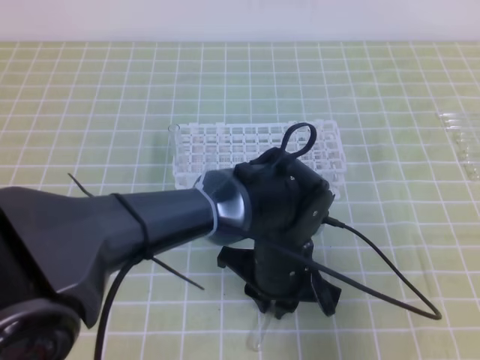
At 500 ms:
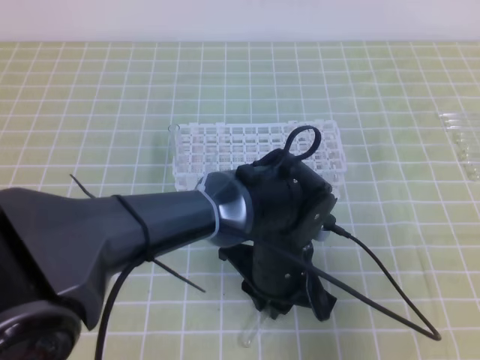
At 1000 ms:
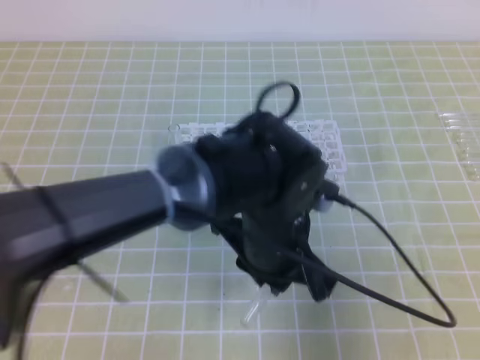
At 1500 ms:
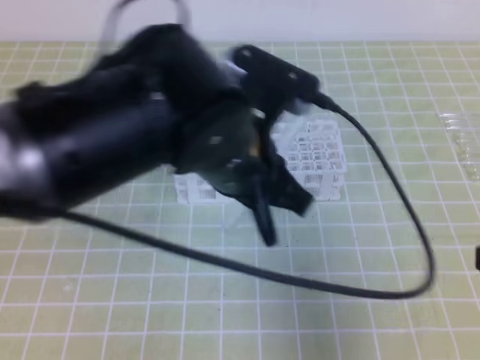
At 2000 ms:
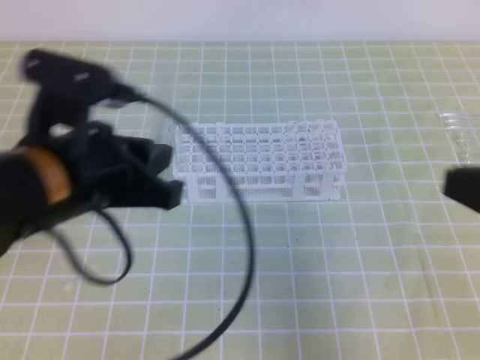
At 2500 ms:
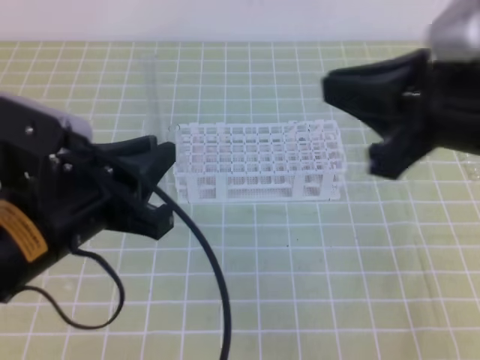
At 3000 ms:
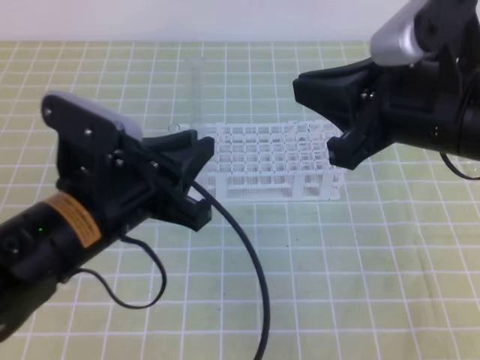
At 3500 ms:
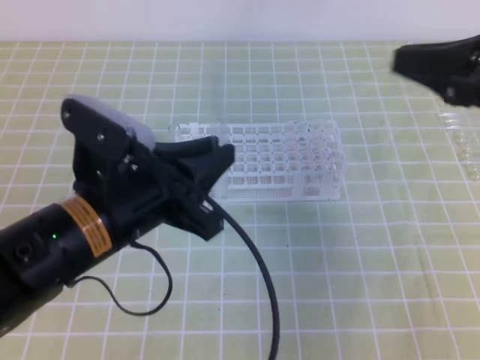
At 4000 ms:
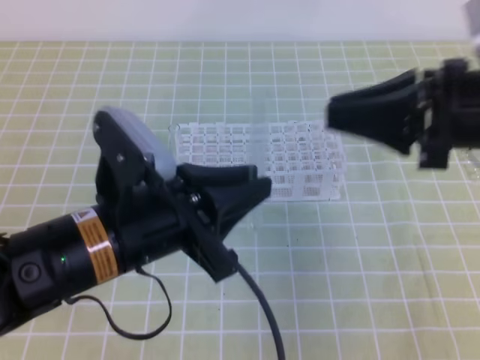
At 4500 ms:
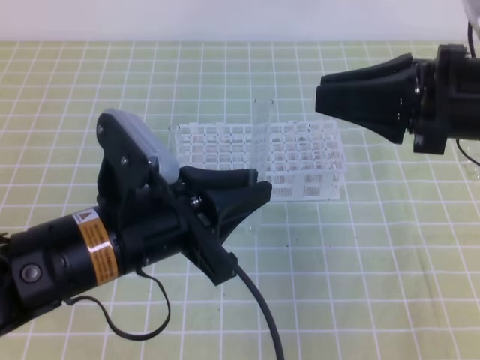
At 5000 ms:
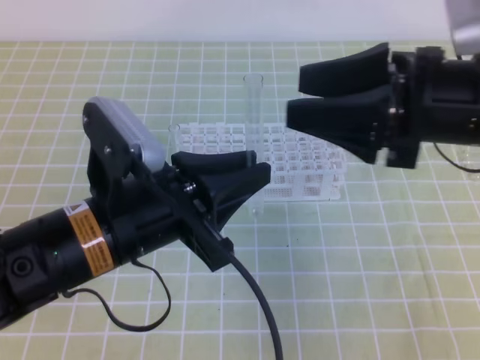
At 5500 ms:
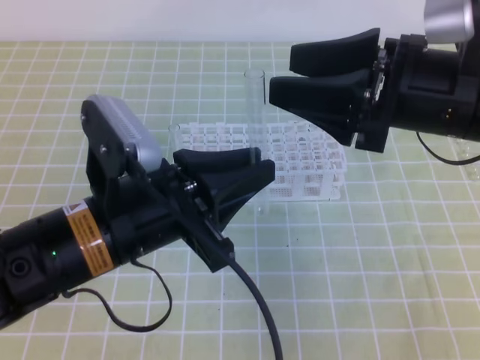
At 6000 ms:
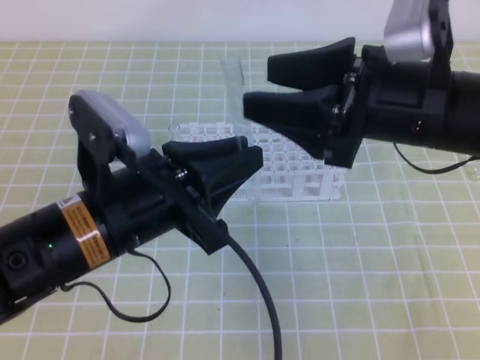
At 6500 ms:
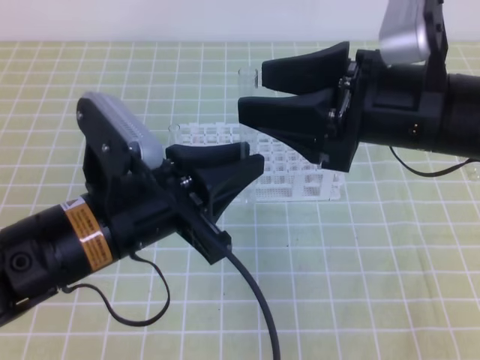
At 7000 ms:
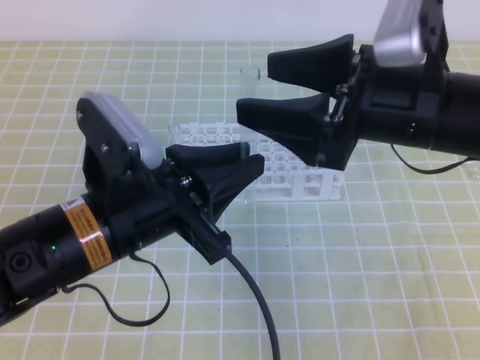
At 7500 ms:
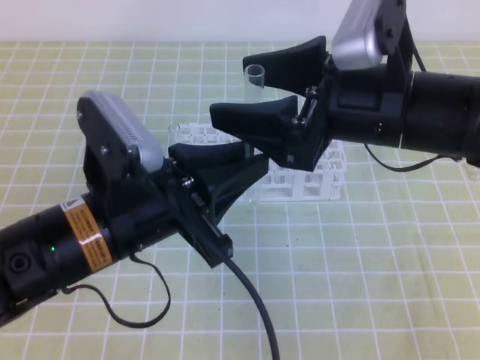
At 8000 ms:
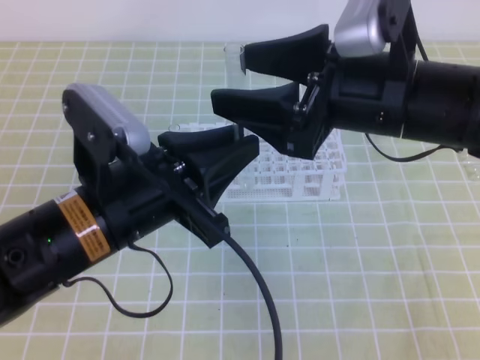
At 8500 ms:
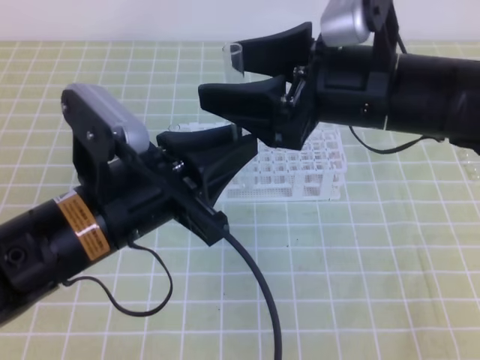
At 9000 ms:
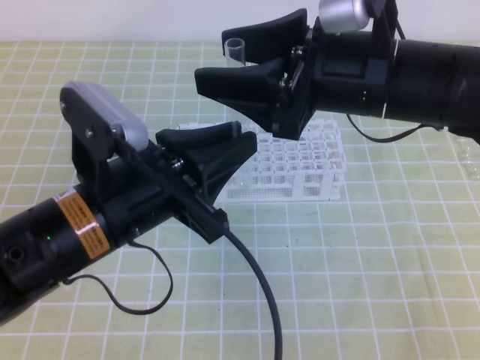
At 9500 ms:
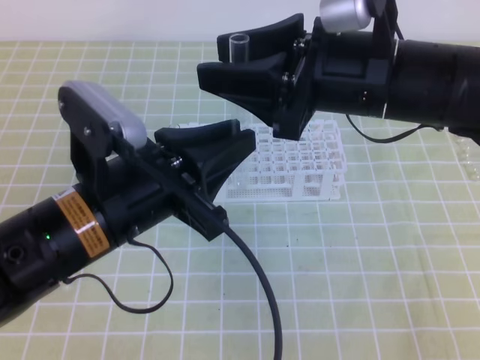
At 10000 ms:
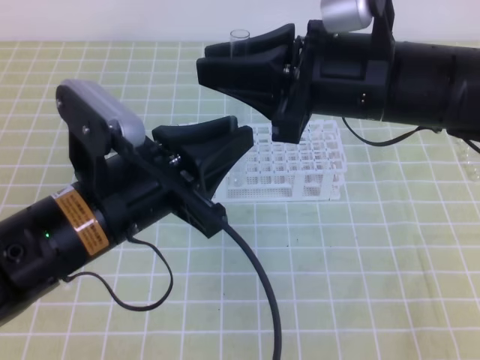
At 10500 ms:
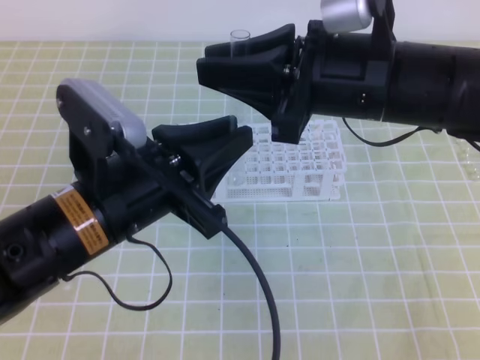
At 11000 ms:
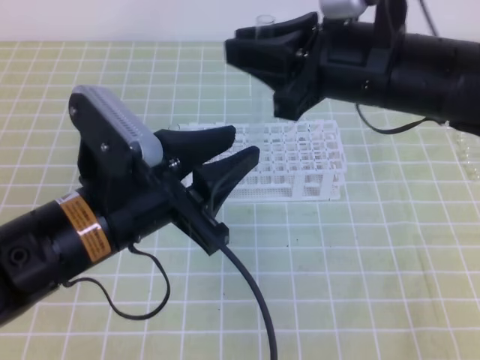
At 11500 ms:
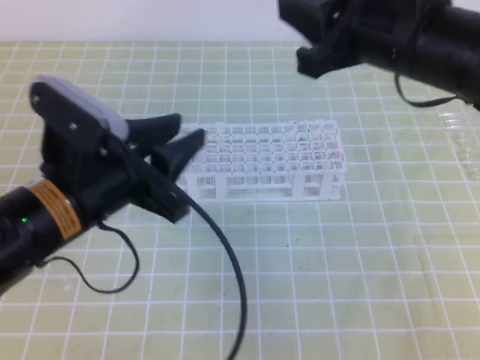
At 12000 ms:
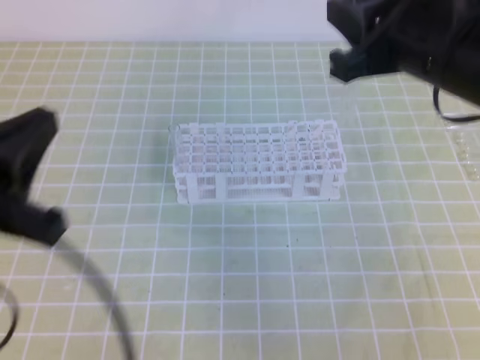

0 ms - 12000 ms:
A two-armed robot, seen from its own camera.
0 ms - 2000 ms: The right gripper changes place by approximately 5 cm. The left gripper goes roughly 25 cm to the left and upward.
2000 ms - 4000 ms: The right gripper travels forward by about 10 cm. Meanwhile the left gripper shifts by roughly 5 cm.
4000 ms - 6000 ms: The right gripper shifts roughly 5 cm to the left, and opens.
6000 ms - 8000 ms: The grippers stay close to where they were, moving slightly.
8000 ms - 10000 ms: The right gripper closes up.
10000 ms - 12000 ms: The left gripper travels to the left by some 10 cm, and opens, then closes once more; the right gripper shifts by about 5 cm.

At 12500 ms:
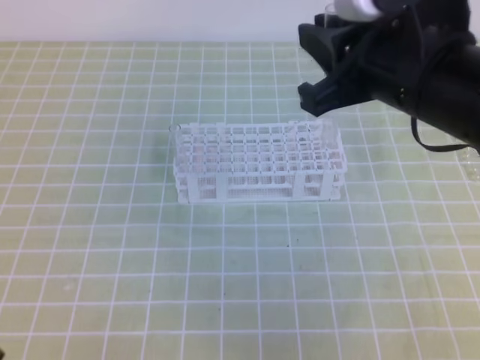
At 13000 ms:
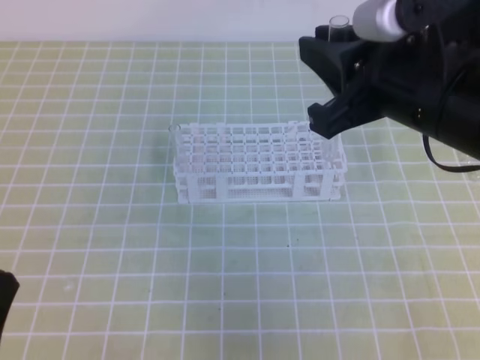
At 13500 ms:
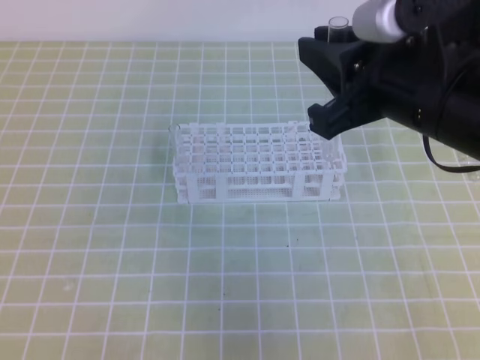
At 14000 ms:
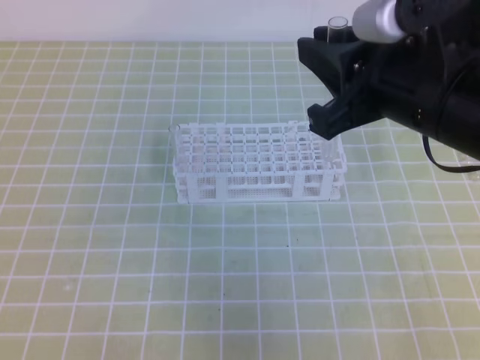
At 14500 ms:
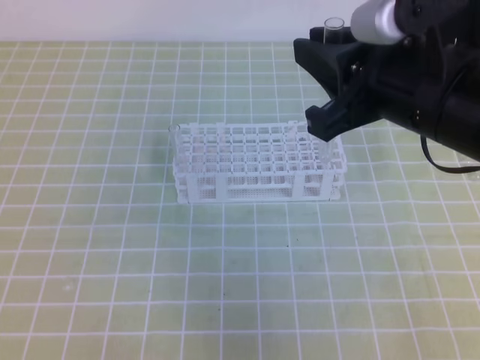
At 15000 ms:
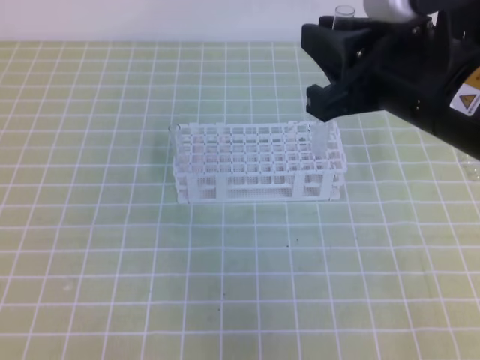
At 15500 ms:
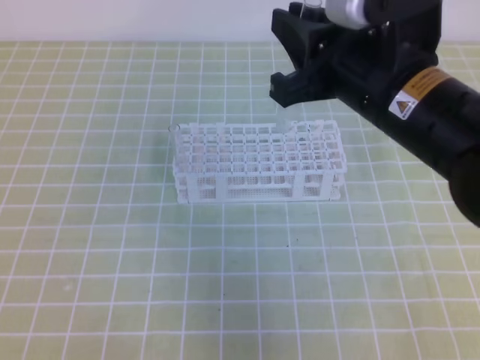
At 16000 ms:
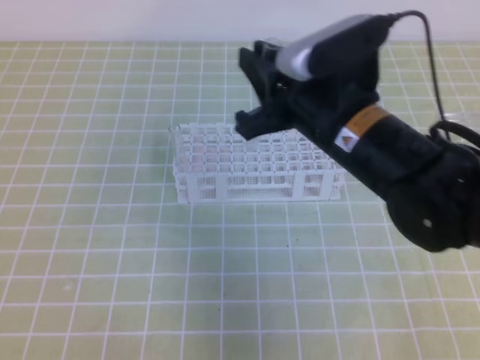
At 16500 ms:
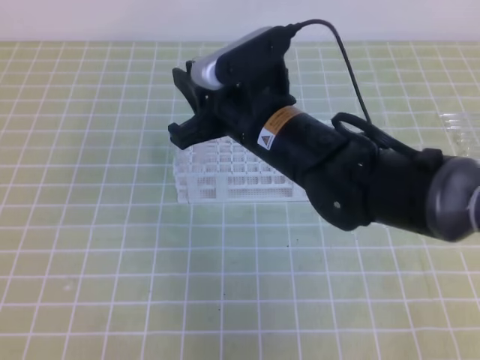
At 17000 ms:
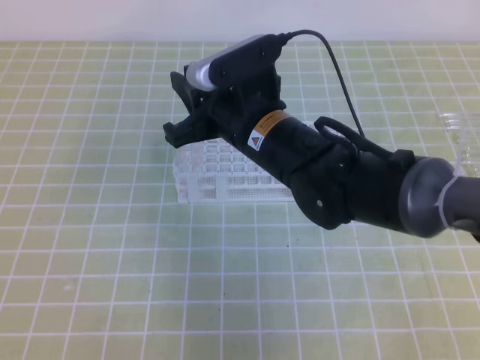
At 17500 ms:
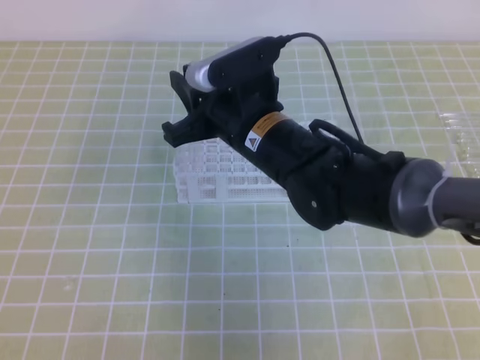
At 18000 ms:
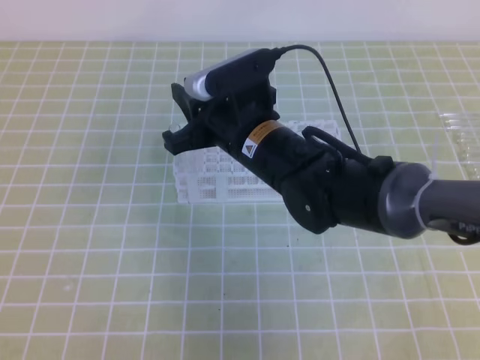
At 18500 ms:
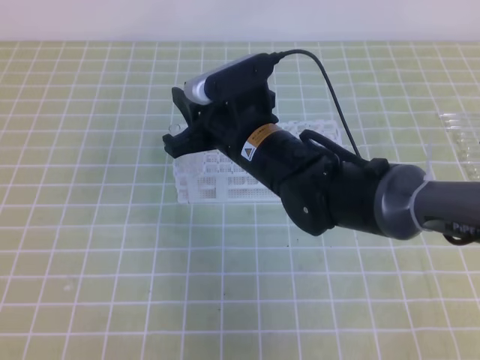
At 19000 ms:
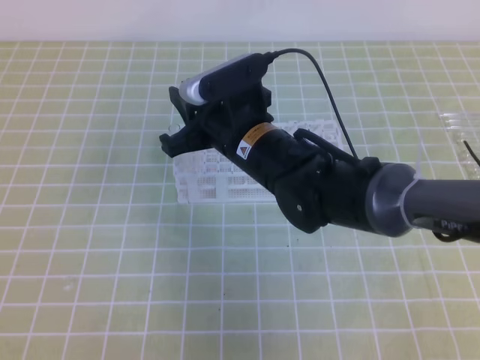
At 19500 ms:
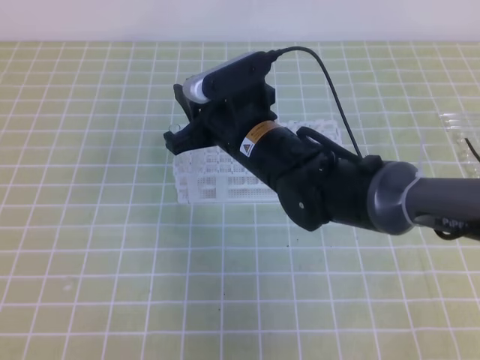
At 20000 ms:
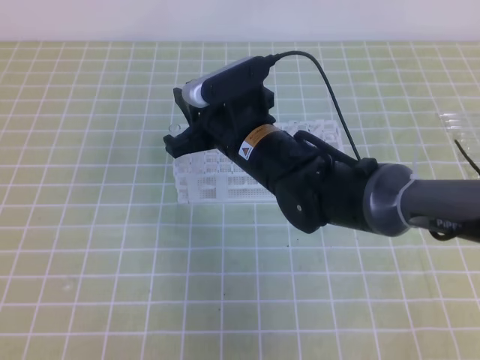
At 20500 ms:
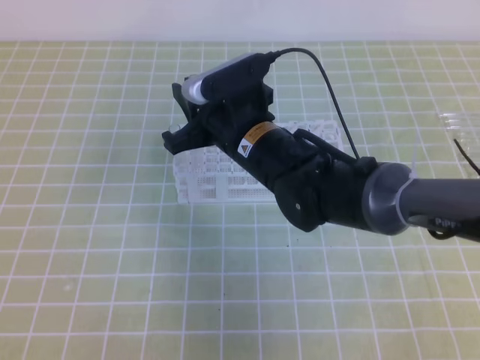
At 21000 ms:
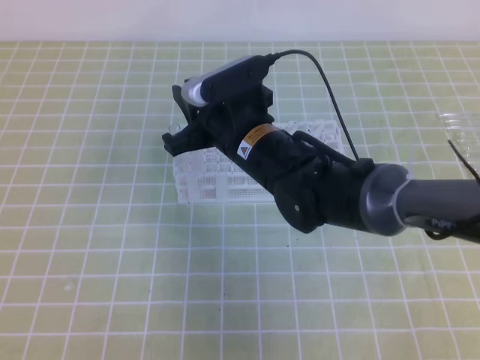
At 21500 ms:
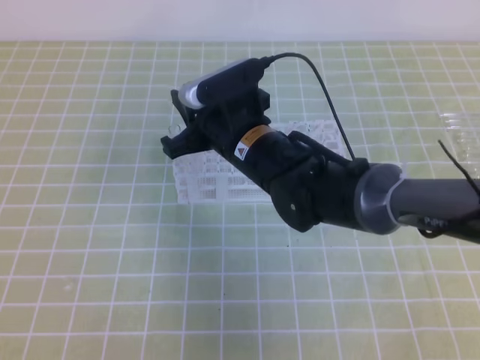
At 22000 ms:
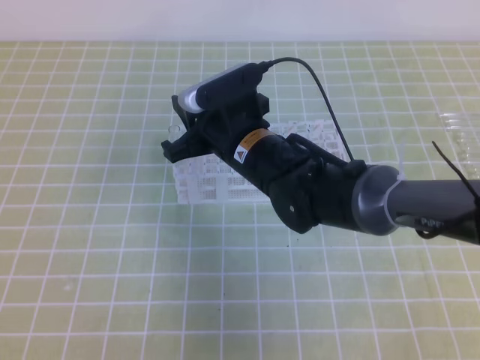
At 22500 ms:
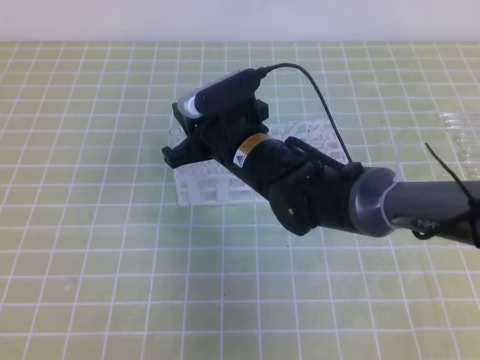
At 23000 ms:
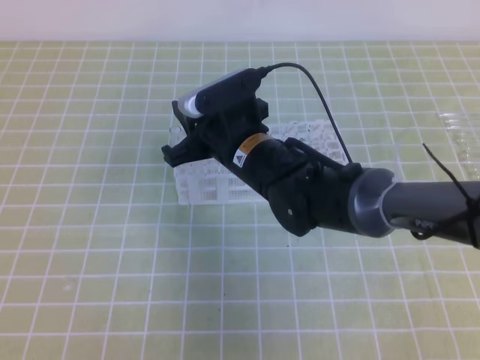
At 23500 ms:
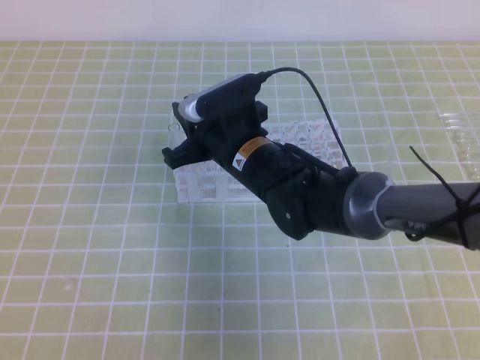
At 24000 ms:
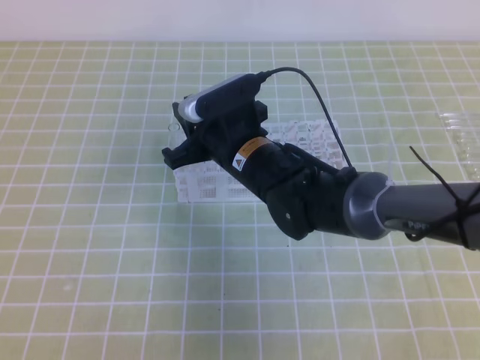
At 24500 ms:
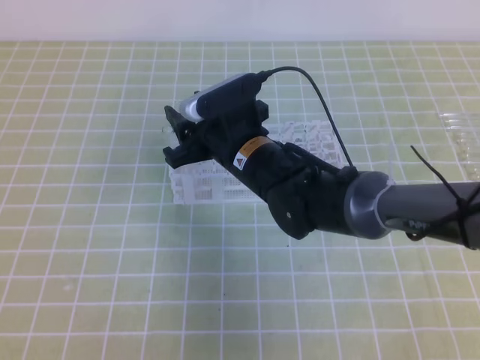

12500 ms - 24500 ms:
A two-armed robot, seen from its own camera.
12500 ms - 14500 ms: The left gripper moves downward, about 5 cm.
14500 ms - 16500 ms: The right gripper shifts some 15 cm to the left, downward and forward.
16500 ms - 18500 ms: The right gripper shifts by roughly 5 cm.
18500 ms - 20500 ms: Neither gripper changes place.
20500 ms - 22500 ms: The grippers move only a little.
22500 ms - 24500 ms: The right gripper opens its fingers.

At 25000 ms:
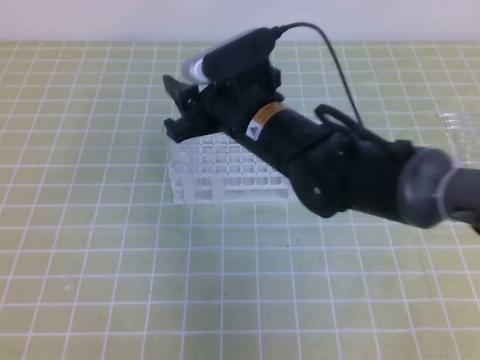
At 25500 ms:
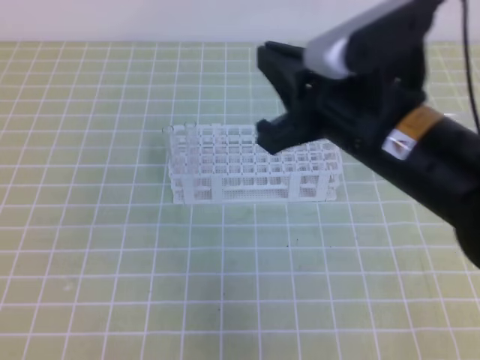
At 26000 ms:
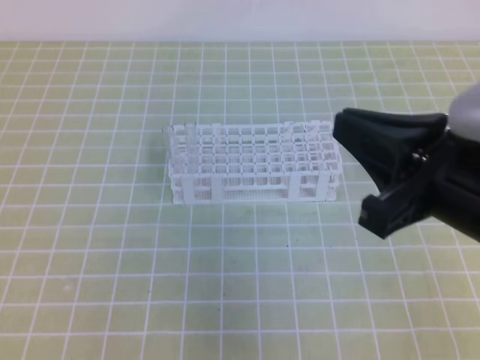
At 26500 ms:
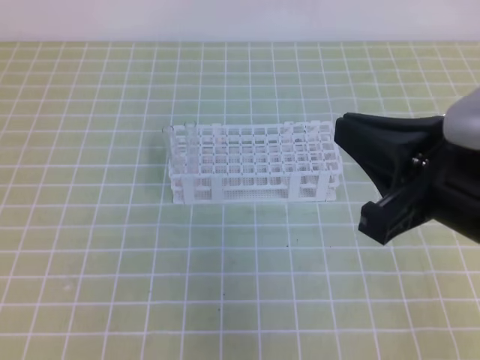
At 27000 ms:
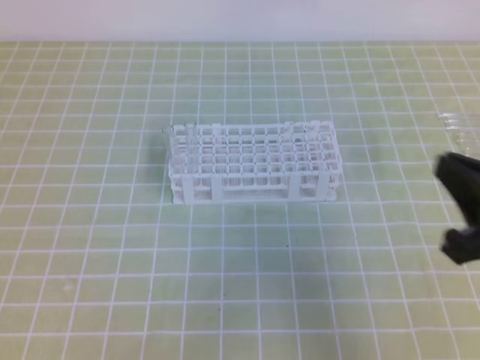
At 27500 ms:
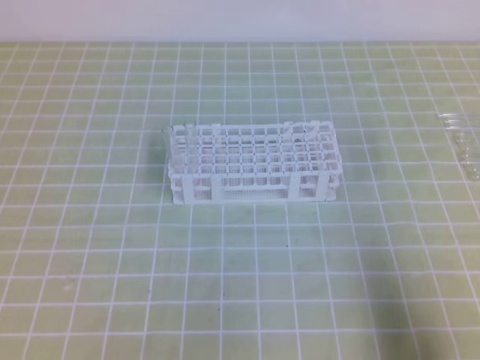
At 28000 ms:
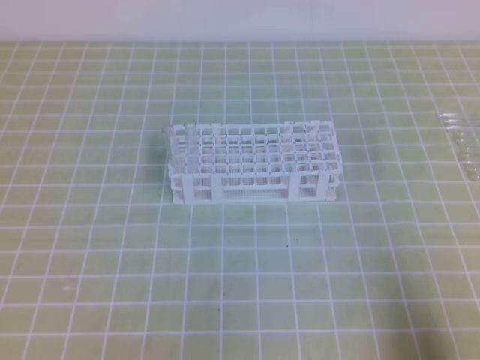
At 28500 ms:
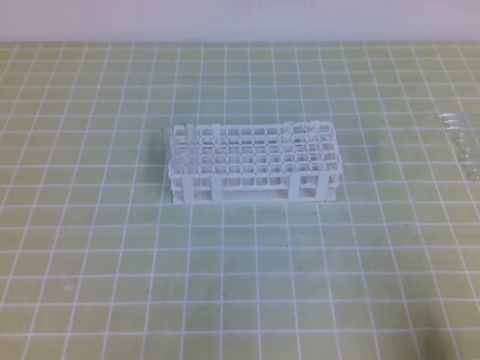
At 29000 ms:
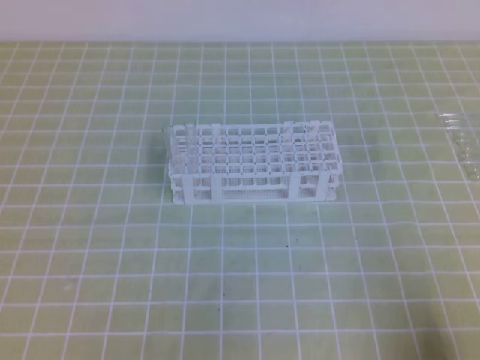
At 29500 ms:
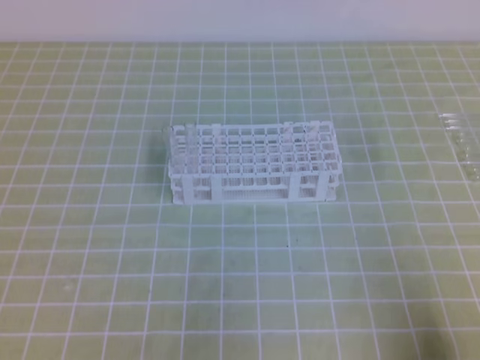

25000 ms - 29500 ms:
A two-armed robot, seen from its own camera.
25000 ms - 27000 ms: The right gripper goes about 25 cm to the right and backward, and closes.
27000 ms - 29500 ms: The right gripper goes approximately 15 cm downward, backward and to the right.
